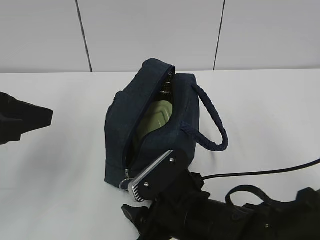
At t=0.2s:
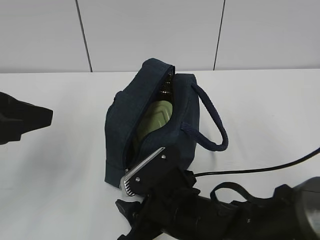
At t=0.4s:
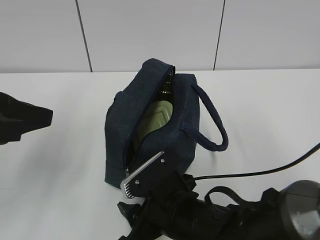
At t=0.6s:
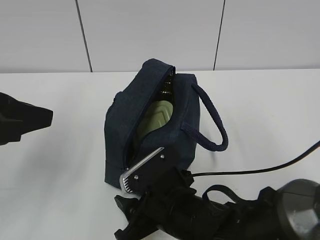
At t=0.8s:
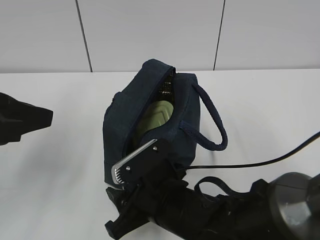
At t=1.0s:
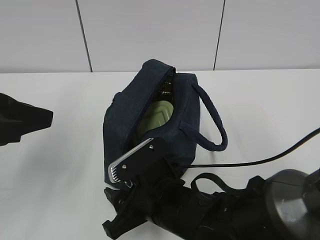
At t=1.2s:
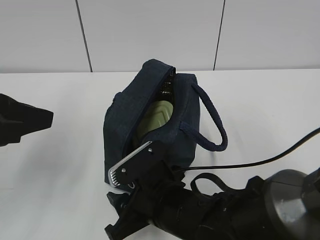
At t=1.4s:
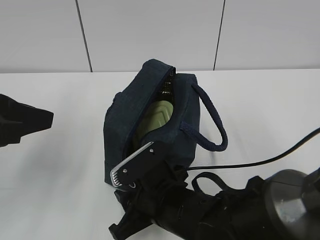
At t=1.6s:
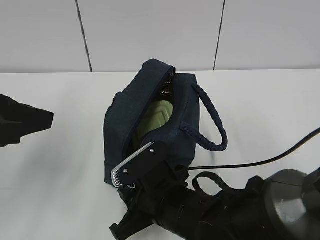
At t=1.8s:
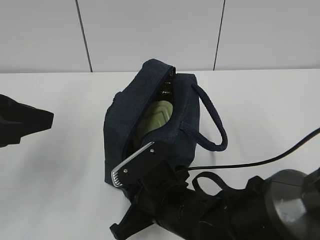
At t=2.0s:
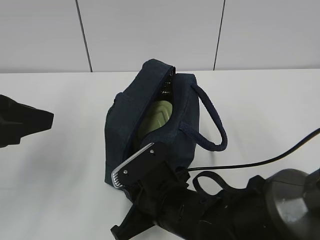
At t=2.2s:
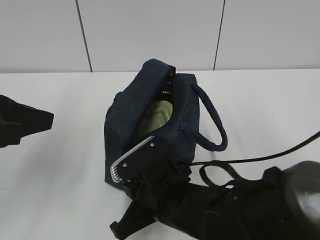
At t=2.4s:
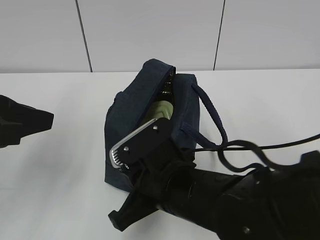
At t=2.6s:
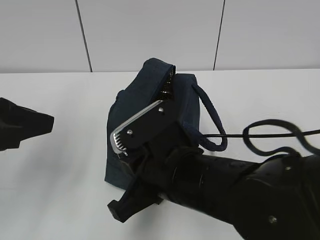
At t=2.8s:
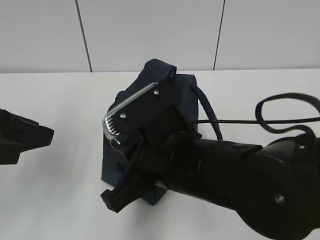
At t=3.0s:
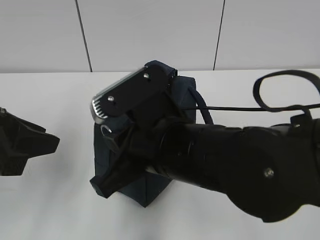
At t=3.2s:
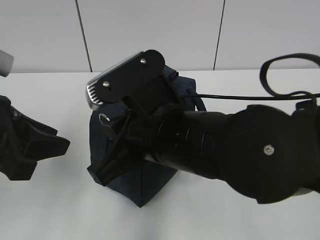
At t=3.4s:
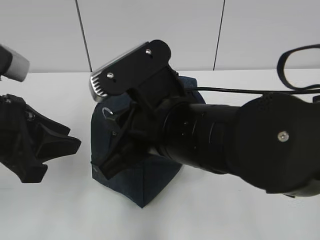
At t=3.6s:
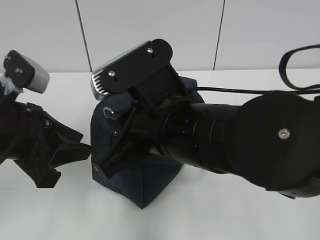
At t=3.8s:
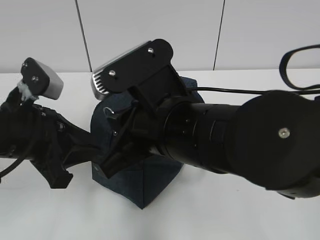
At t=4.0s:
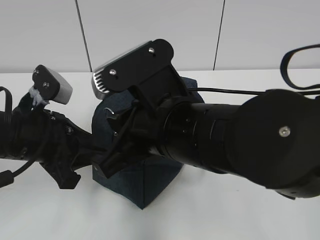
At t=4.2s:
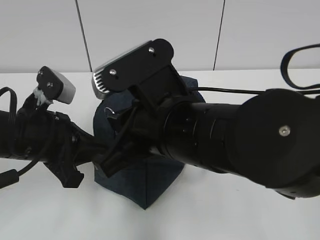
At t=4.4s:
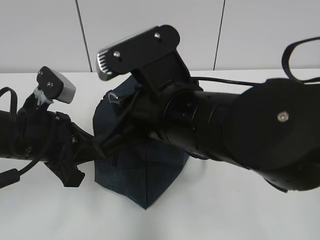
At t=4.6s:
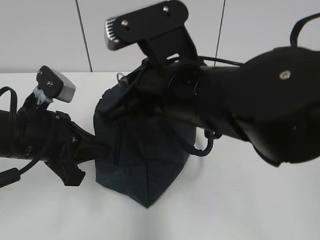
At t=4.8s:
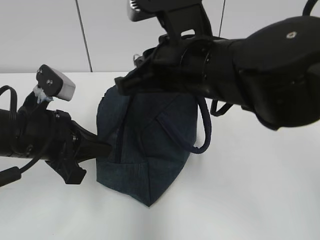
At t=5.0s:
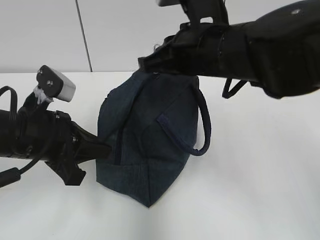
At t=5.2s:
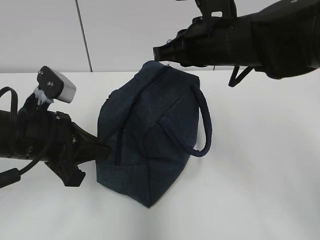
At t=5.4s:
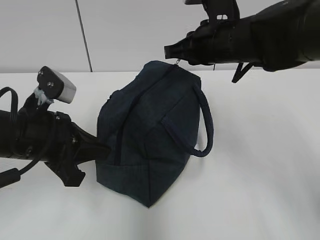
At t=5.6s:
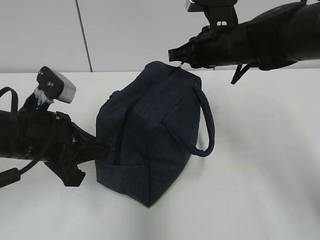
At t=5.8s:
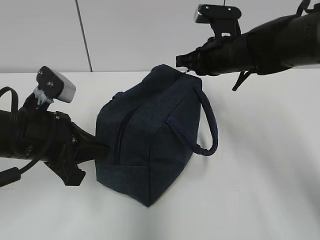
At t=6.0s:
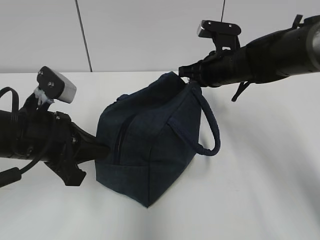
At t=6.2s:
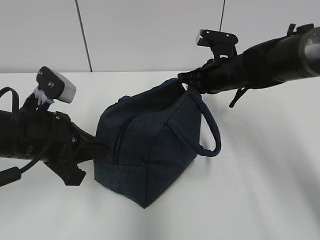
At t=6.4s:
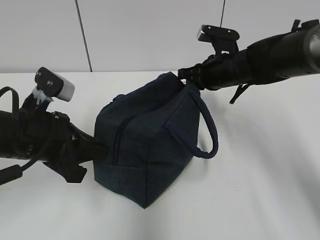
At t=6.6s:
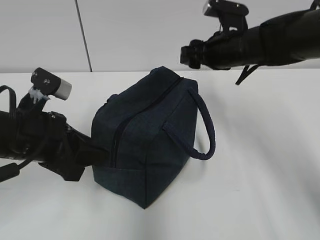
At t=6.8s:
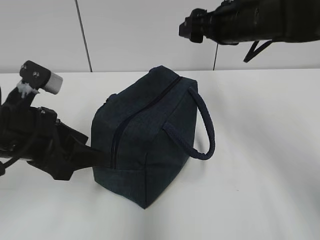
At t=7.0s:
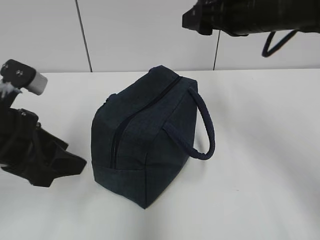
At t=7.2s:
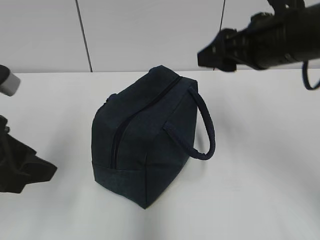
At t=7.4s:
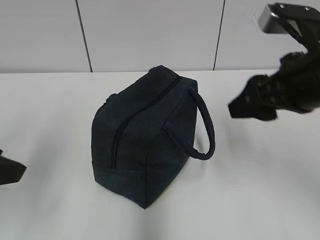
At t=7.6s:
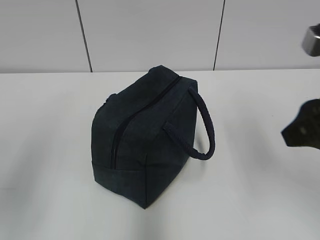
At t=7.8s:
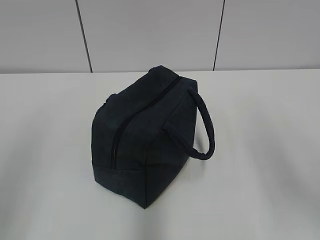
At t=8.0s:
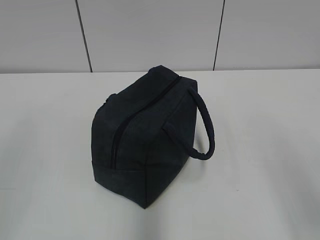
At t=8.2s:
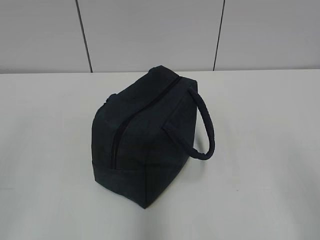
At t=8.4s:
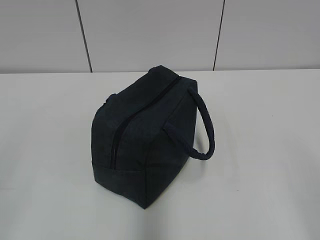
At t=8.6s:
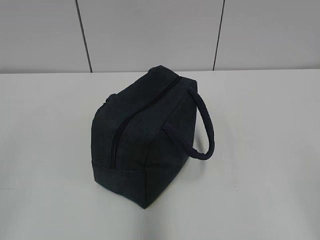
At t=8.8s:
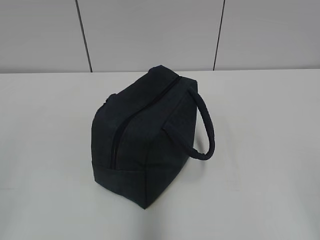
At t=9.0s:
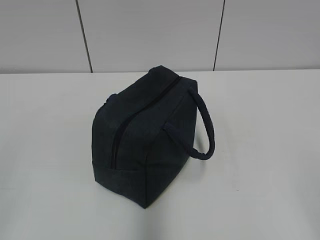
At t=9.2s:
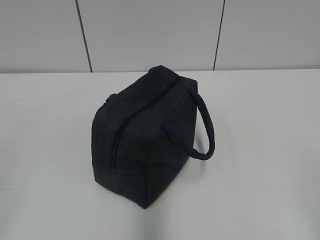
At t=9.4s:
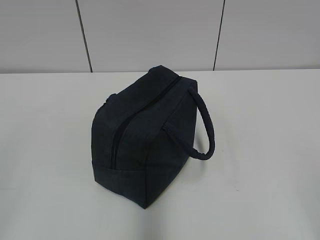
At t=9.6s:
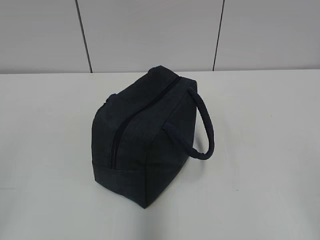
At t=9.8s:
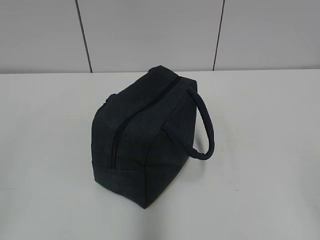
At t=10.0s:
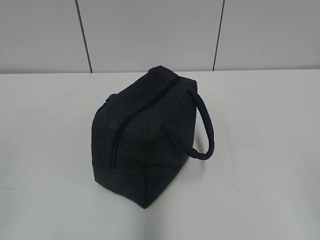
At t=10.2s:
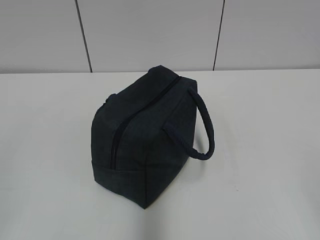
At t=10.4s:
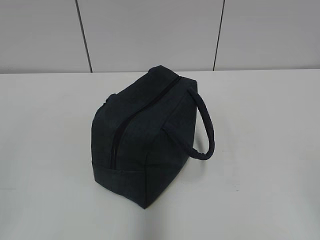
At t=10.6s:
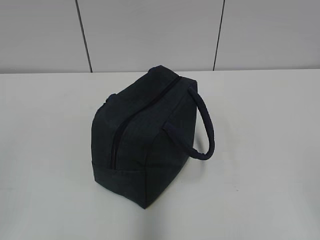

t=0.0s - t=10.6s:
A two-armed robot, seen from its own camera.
t=0.0s - t=1.6s: The right gripper closes up.
t=1.6s - t=3.0s: The right gripper is displaced upward by some 15 cm, and closes up.
t=3.0s - t=4.6s: The left gripper shifts some 10 cm downward and forward, and closes its fingers. The right gripper shifts some 5 cm upward.
t=4.6s - t=6.0s: The right gripper goes about 25 cm forward, to the right and downward.
t=6.0s - t=7.6s: The right gripper travels backward and upward by approximately 30 cm, and opens its fingers; the left gripper moves backward, upward and to the left, some 20 cm, and opens its fingers.
t=7.6s - t=9.0s: The right gripper heads backward, covering about 20 cm.
